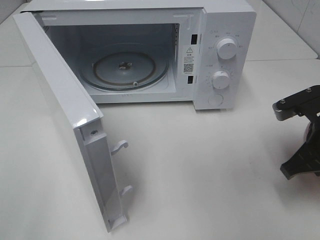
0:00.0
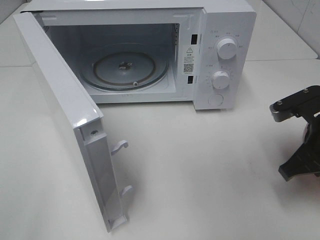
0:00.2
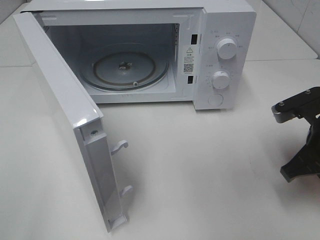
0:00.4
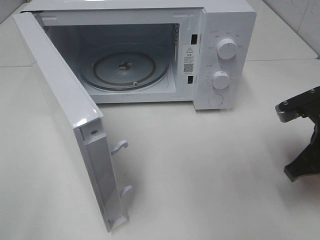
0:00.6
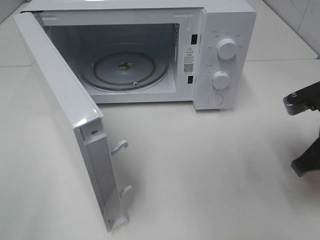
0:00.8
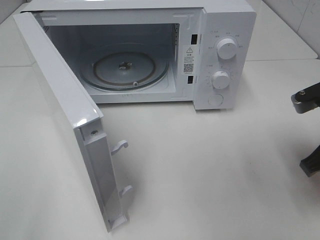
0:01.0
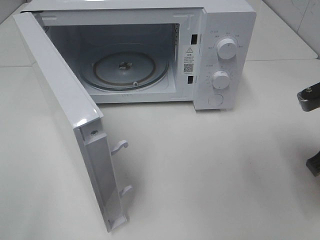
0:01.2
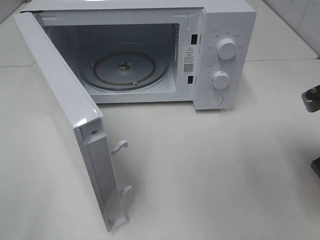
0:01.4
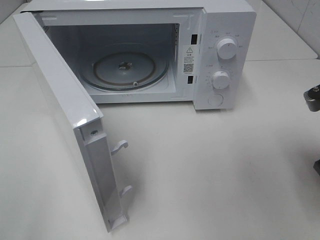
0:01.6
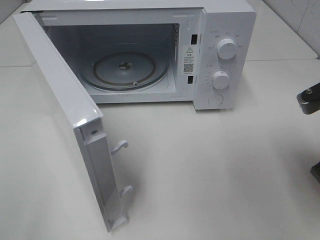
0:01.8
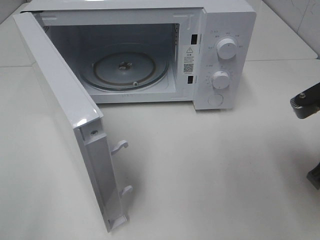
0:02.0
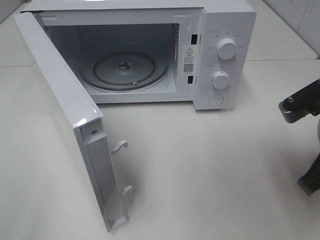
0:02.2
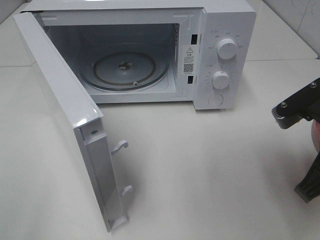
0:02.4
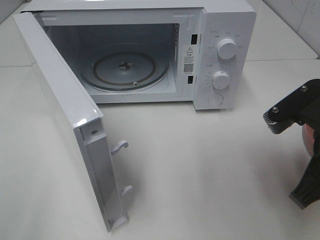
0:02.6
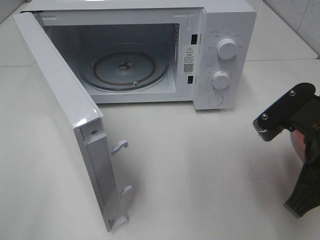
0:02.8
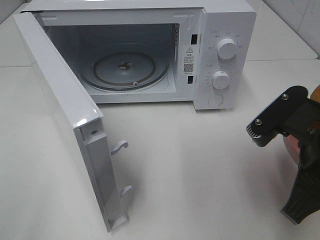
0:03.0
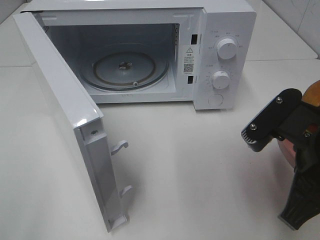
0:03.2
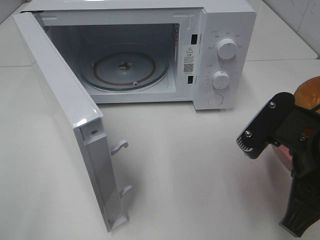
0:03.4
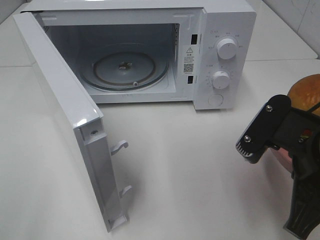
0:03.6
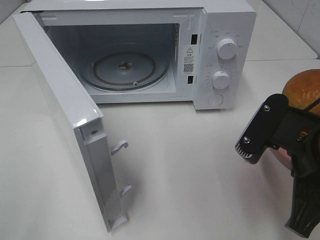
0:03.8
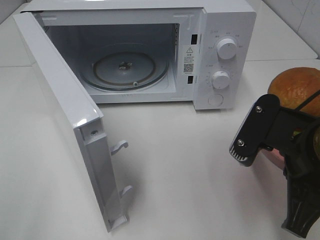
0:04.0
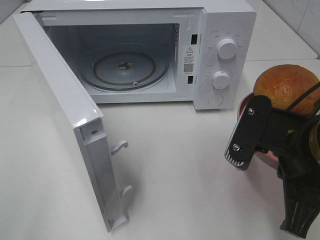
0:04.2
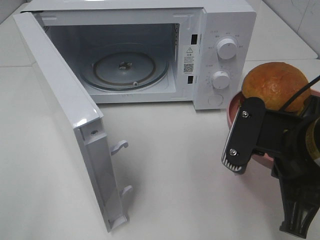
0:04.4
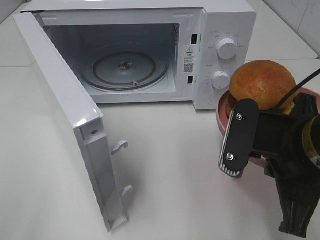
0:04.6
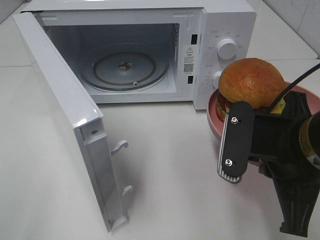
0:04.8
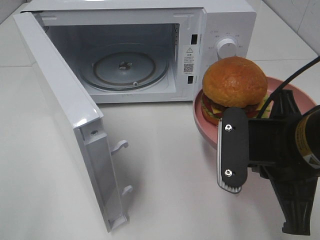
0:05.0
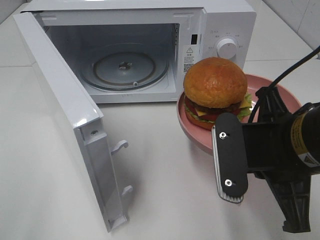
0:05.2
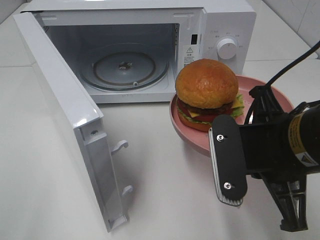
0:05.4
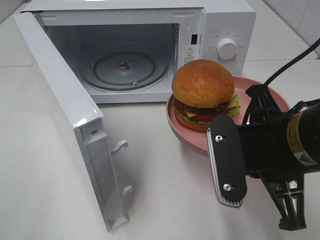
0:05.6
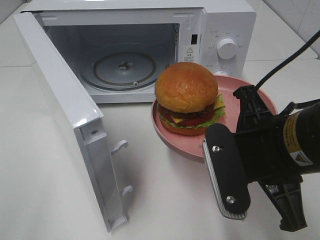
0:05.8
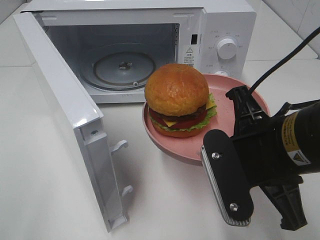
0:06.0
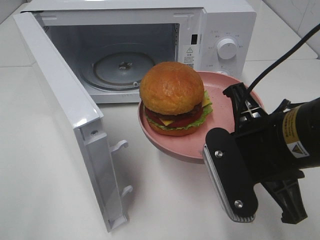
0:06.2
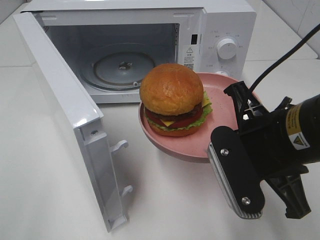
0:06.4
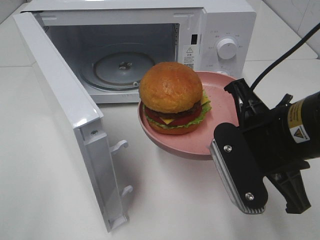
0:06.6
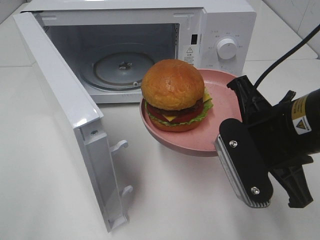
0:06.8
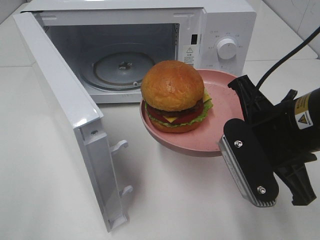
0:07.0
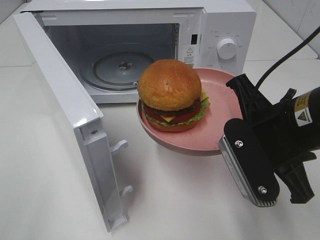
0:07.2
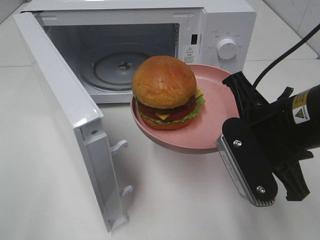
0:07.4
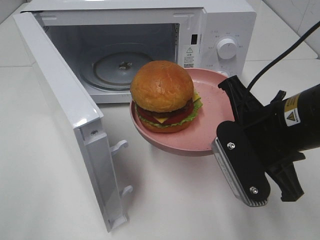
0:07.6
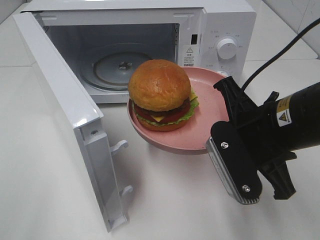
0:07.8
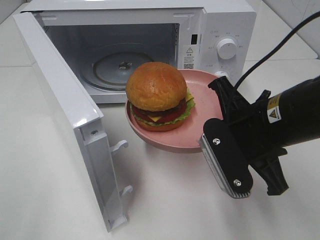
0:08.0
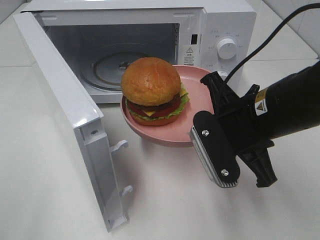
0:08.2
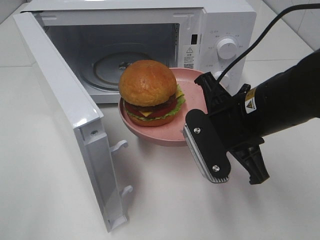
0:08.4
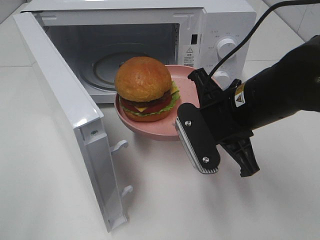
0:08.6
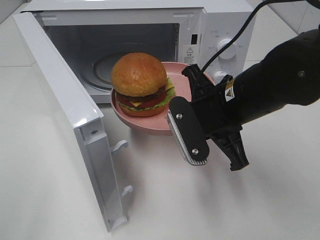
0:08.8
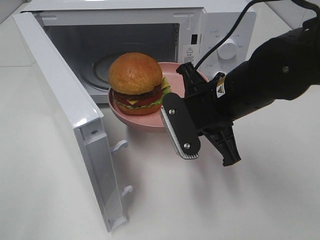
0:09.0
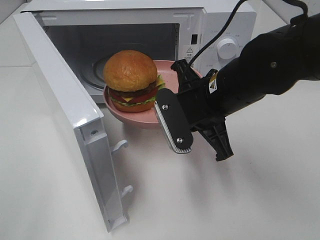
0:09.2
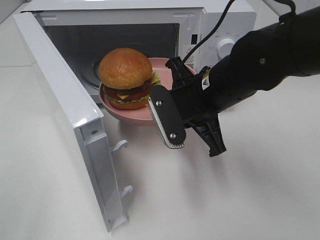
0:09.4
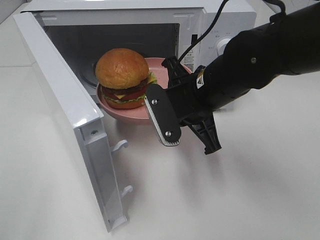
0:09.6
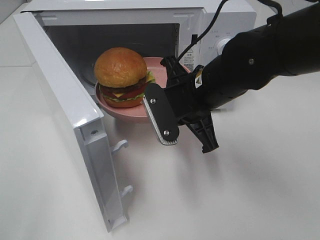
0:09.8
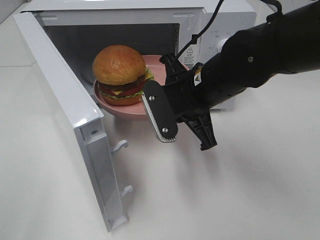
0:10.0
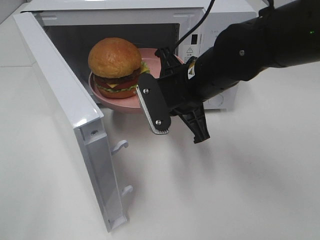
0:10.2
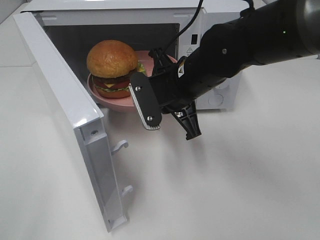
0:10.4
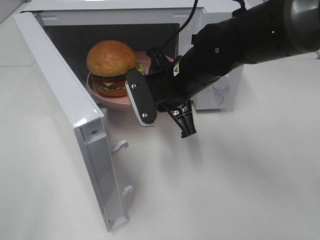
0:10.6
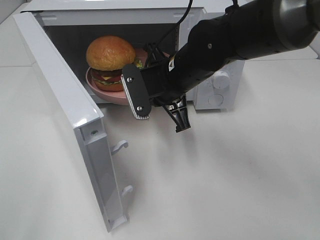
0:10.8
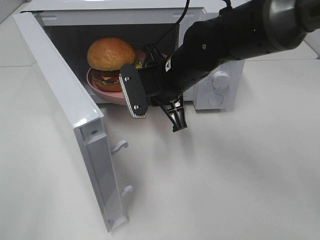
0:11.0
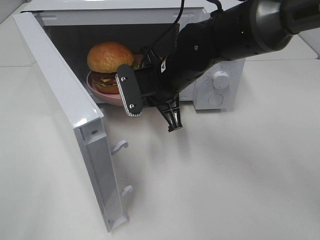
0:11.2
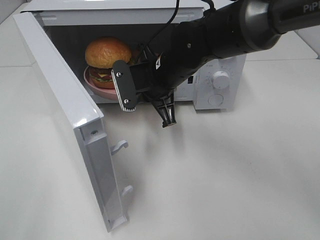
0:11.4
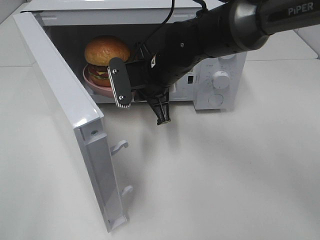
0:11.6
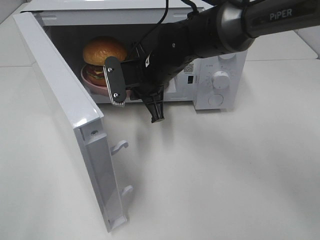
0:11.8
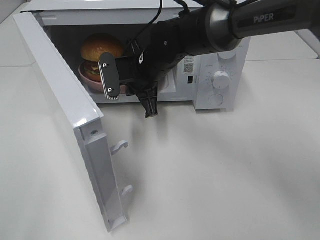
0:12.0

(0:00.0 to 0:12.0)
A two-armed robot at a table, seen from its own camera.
Task of the whole recording: Heat the burger.
0:00.0 - 0:01.6: The right gripper goes roughly 5 cm upward.
0:01.6 - 0:03.0: The right gripper goes roughly 10 cm to the left.
0:06.0 - 0:07.6: The grippers move only a little.
0:07.6 - 0:09.0: The right gripper travels forward and to the left by roughly 10 cm.
0:09.0 - 0:10.4: The right gripper travels forward by approximately 5 cm.
0:10.4 - 0:12.0: The right gripper shifts roughly 10 cm forward and to the left.

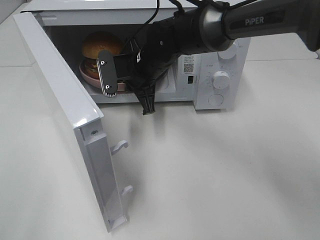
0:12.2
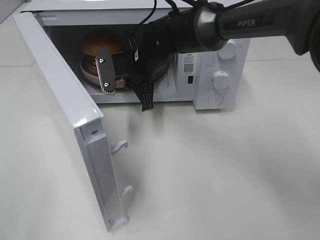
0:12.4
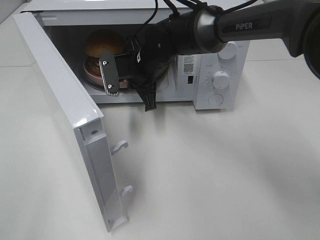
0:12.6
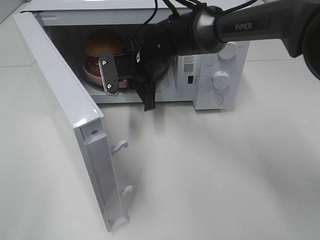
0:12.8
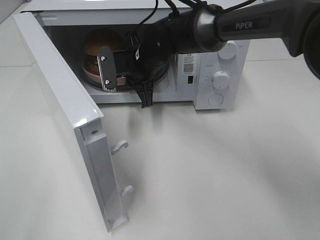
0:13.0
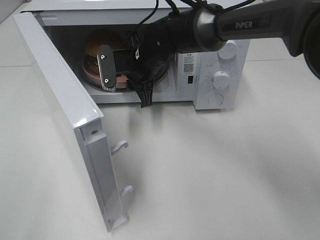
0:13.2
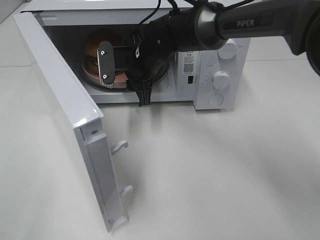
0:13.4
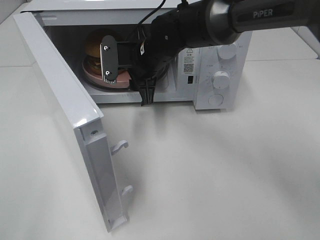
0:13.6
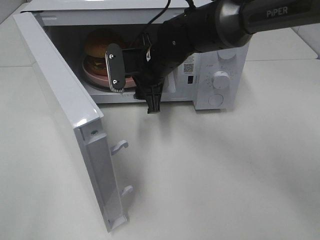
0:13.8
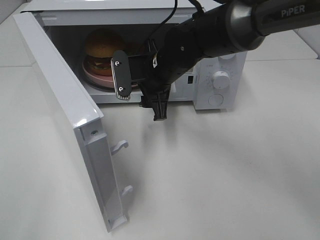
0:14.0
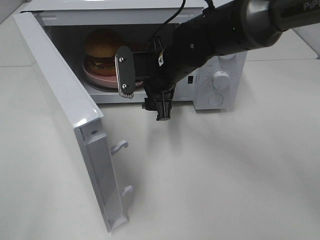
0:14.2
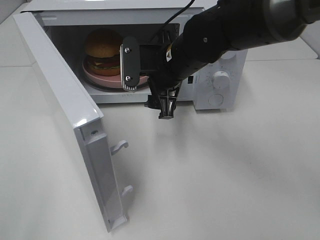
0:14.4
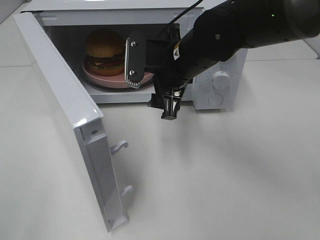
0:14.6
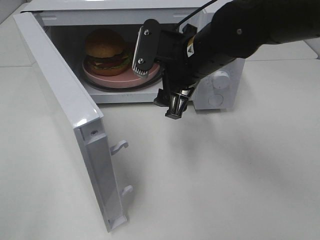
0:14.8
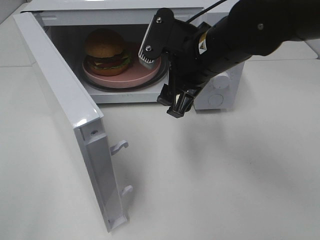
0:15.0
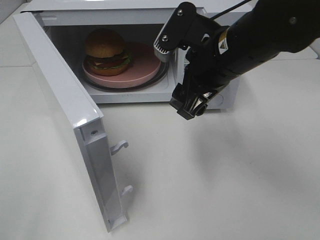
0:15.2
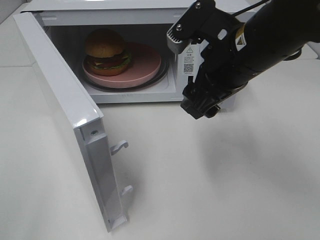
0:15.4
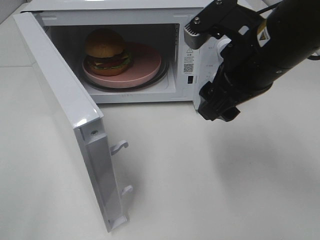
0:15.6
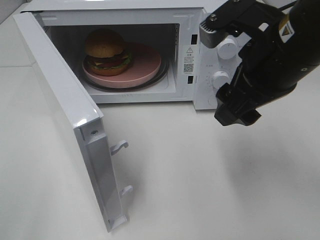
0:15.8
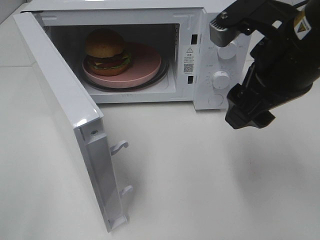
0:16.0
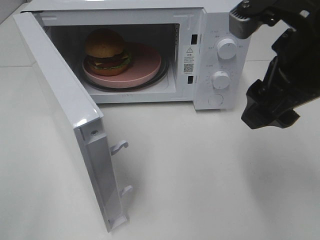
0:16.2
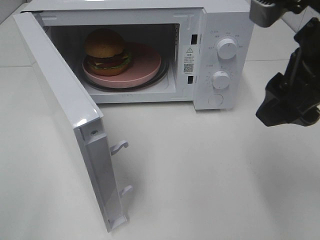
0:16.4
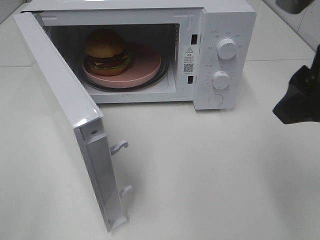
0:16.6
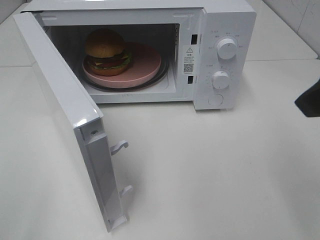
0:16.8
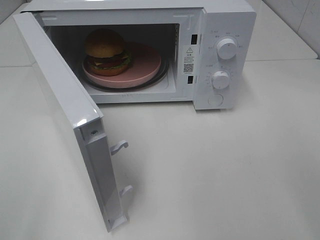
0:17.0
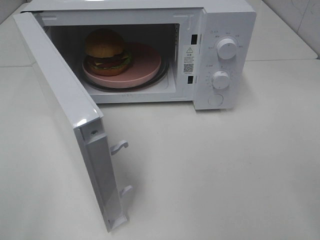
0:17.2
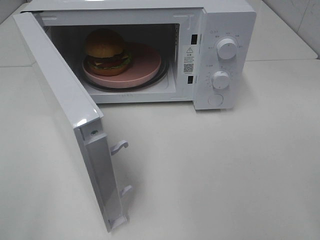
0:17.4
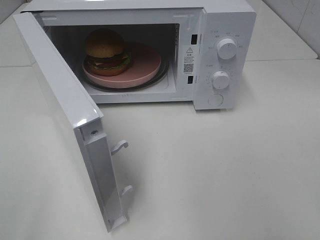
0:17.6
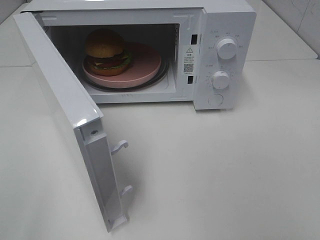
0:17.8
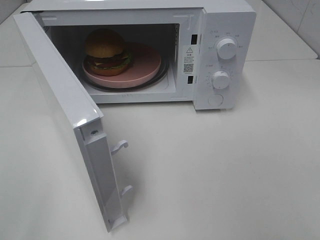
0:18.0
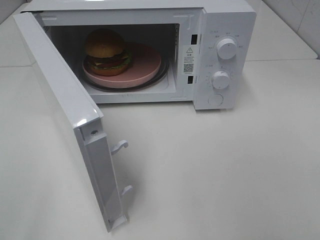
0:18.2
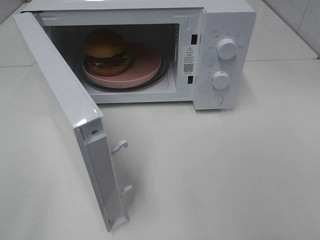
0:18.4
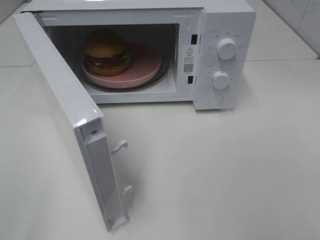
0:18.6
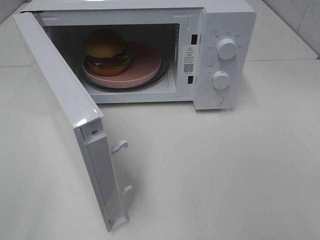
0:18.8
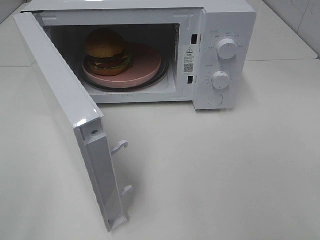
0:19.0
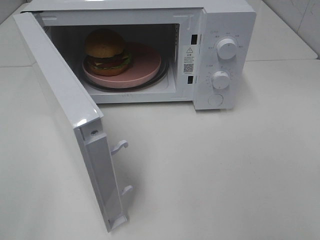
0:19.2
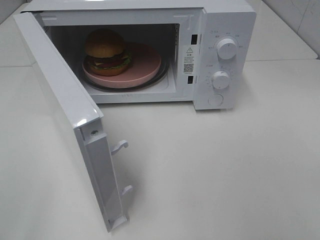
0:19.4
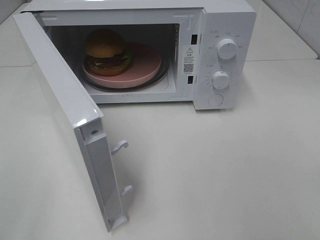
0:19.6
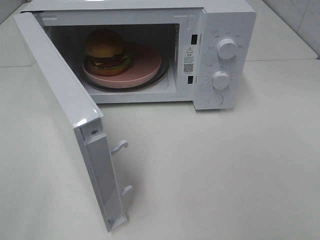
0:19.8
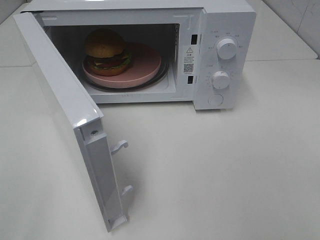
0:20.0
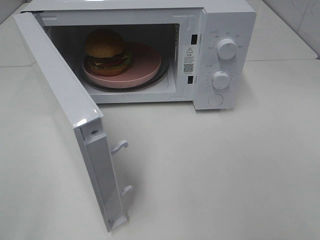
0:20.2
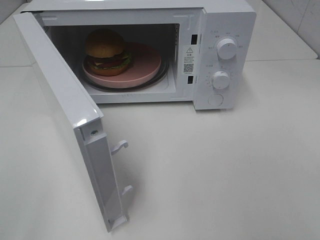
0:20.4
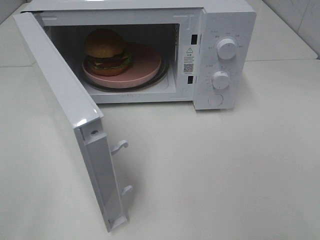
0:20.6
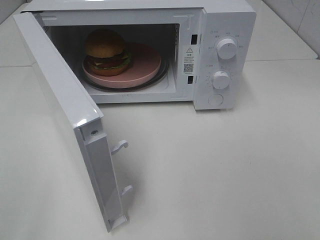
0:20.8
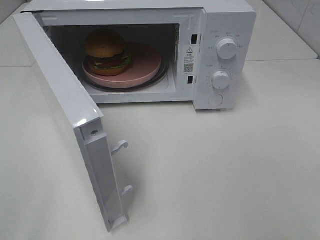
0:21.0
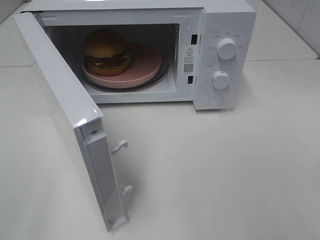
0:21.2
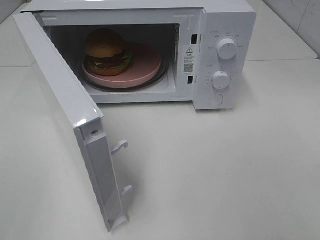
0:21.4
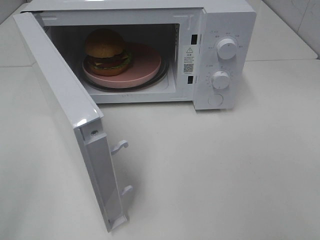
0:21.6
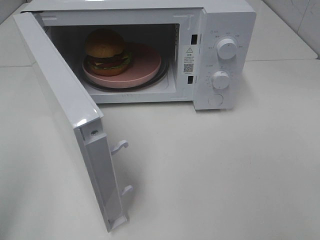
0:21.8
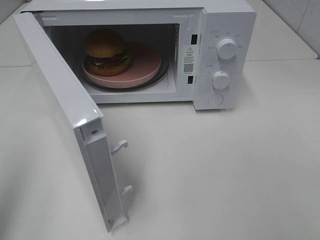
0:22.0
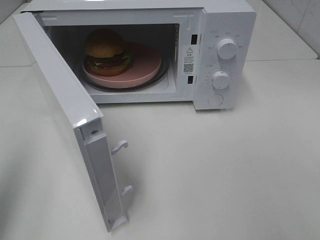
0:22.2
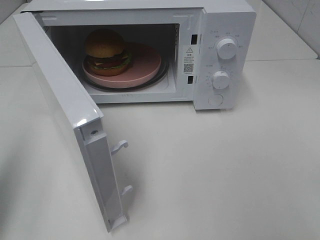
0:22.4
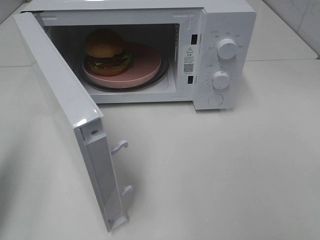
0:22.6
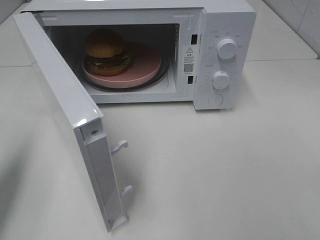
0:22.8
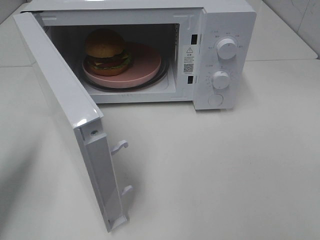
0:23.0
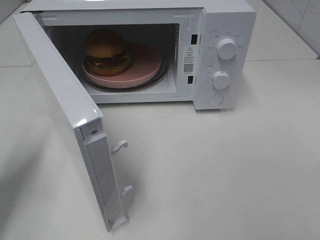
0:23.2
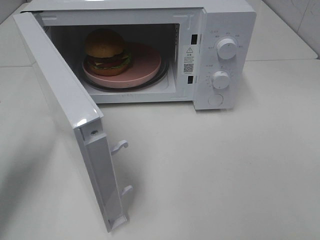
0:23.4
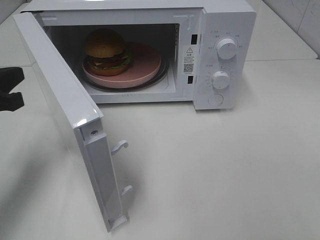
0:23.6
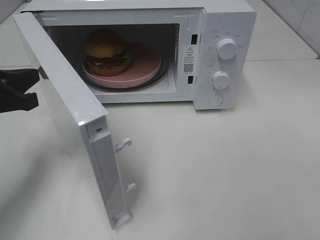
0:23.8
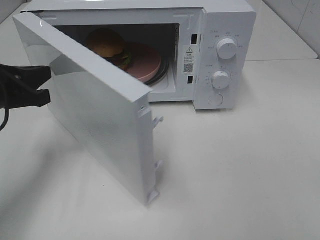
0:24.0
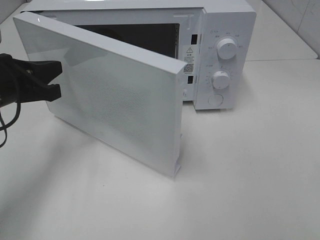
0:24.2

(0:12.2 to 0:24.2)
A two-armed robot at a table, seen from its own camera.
Task of the whole recording: Heat the burger.
0:12.2 - 0:13.8: The right gripper opens up.
0:13.8 - 0:15.2: The right gripper moves backward, to the right and upward, roughly 15 cm.
0:15.2 - 0:16.6: The right gripper heads backward, upward and to the right, covering approximately 15 cm.
0:16.6 - 0:18.2: The right gripper shifts roughly 20 cm backward and to the right.
0:21.2 - 0:22.6: The left gripper shifts approximately 15 cm forward, and closes.
0:22.6 - 0:24.2: The left gripper shifts roughly 15 cm forward, to the right and downward.
